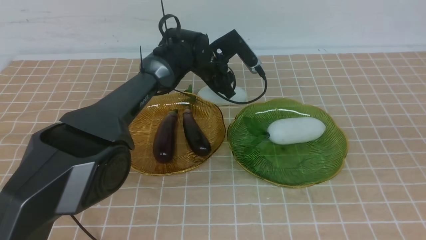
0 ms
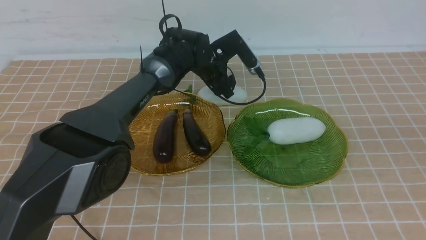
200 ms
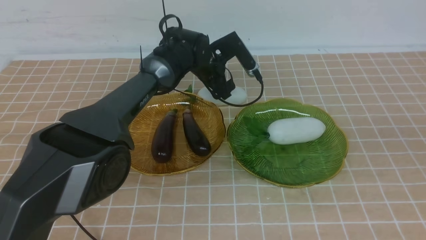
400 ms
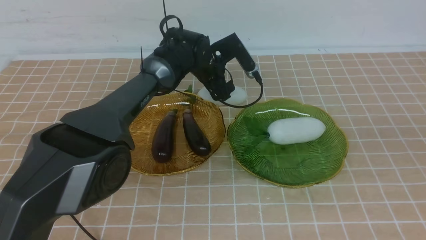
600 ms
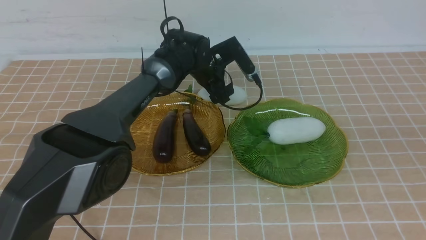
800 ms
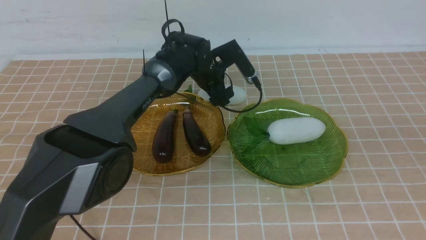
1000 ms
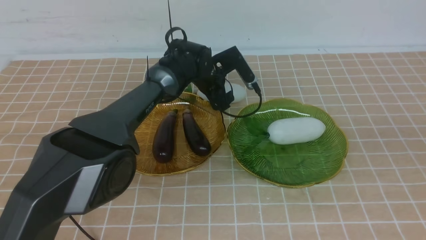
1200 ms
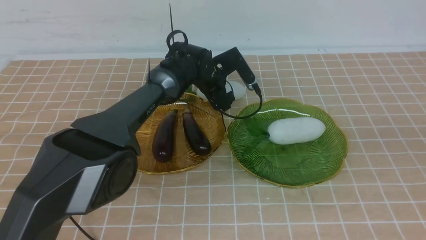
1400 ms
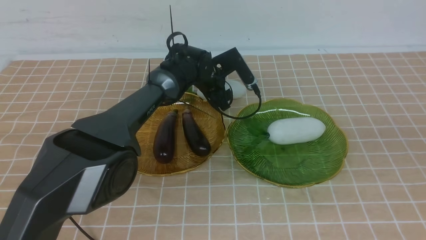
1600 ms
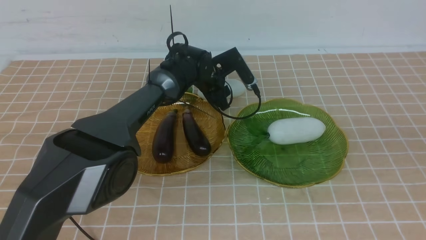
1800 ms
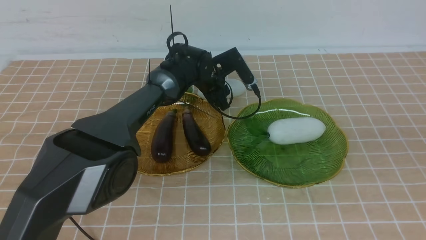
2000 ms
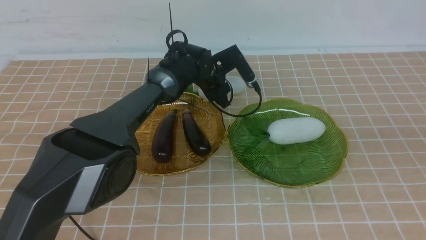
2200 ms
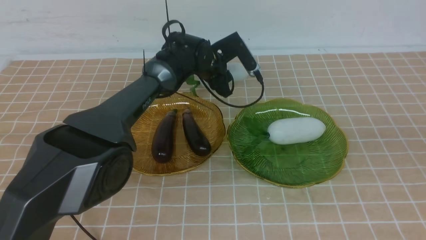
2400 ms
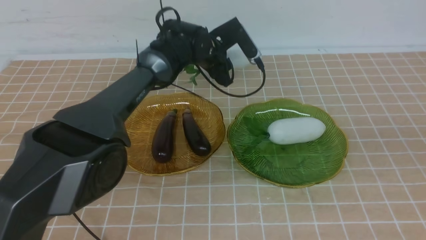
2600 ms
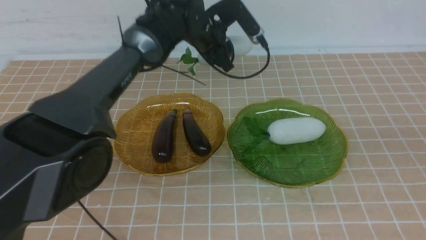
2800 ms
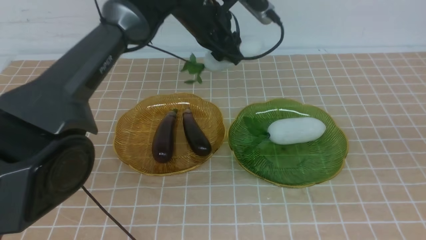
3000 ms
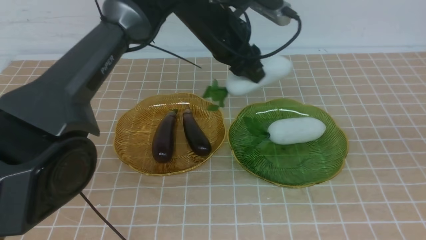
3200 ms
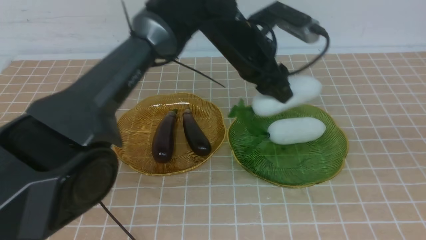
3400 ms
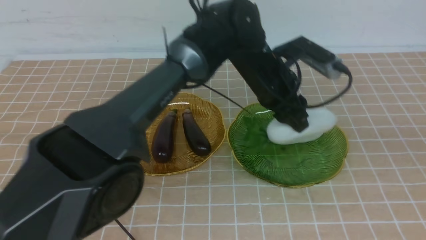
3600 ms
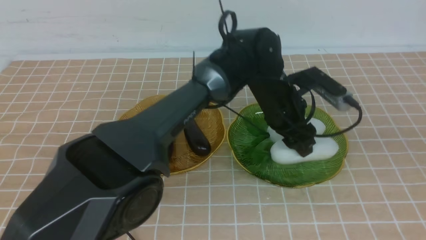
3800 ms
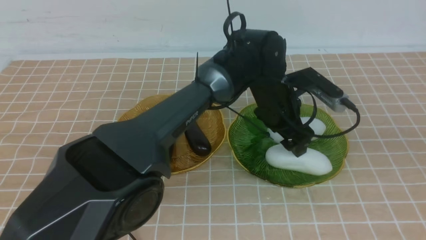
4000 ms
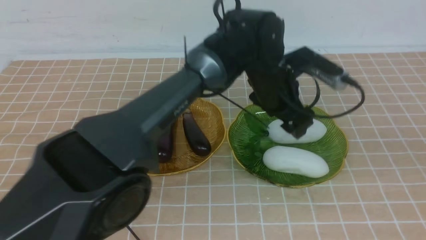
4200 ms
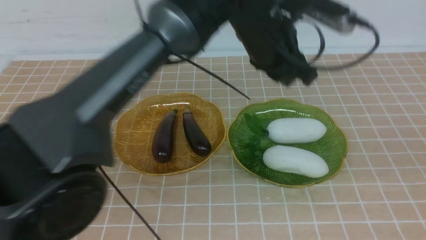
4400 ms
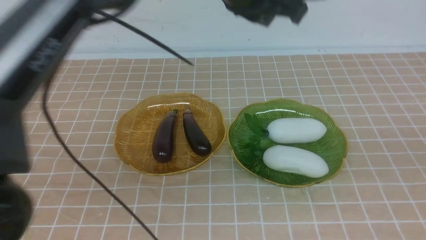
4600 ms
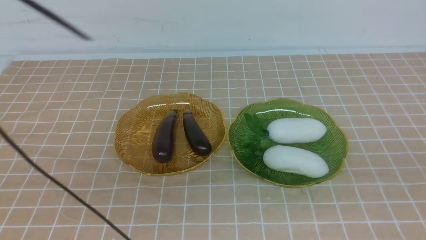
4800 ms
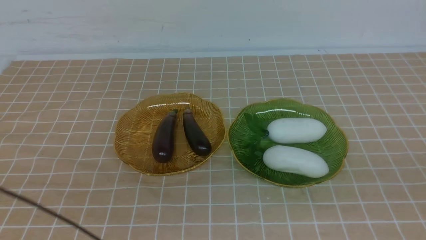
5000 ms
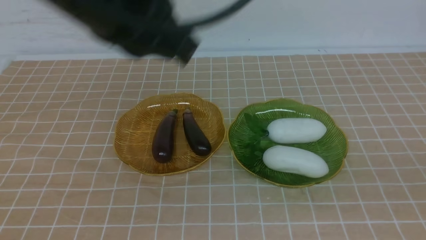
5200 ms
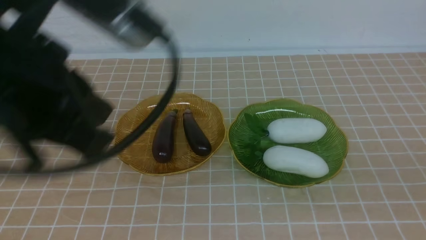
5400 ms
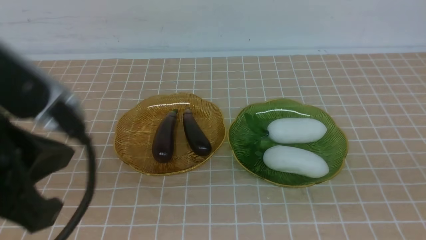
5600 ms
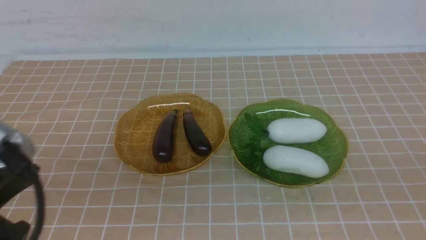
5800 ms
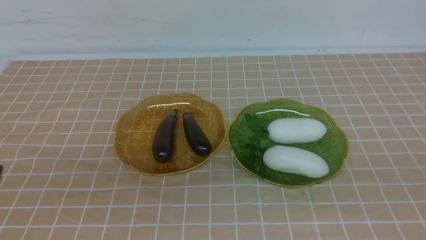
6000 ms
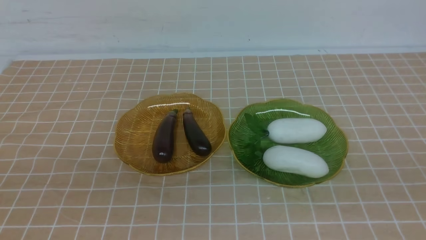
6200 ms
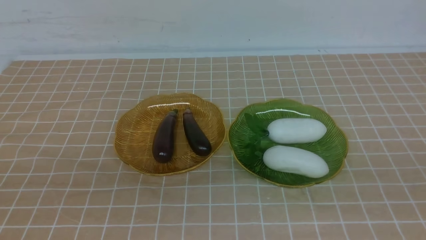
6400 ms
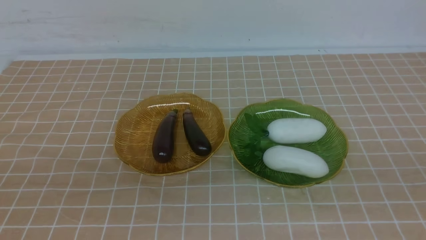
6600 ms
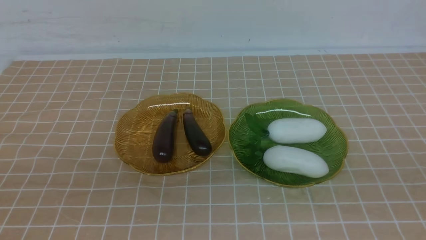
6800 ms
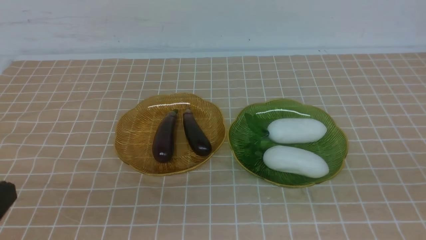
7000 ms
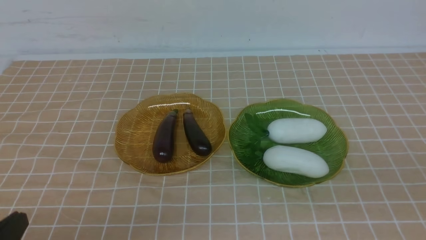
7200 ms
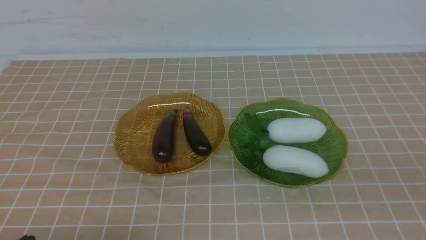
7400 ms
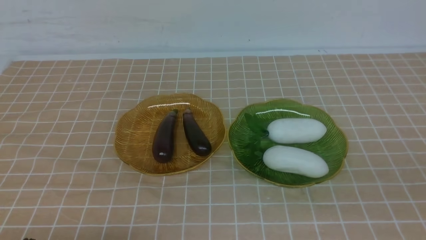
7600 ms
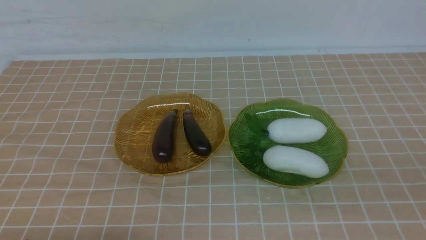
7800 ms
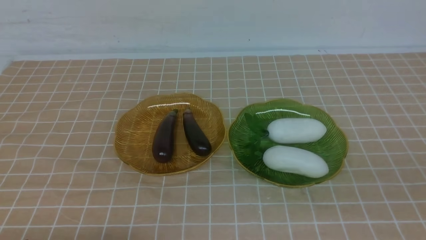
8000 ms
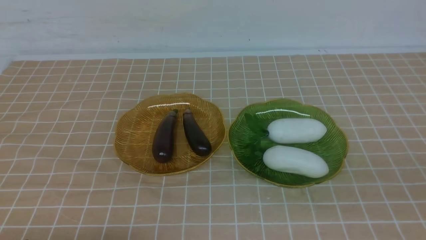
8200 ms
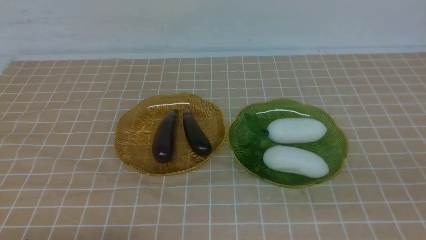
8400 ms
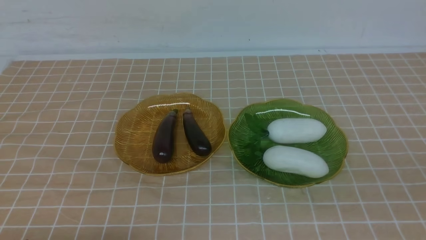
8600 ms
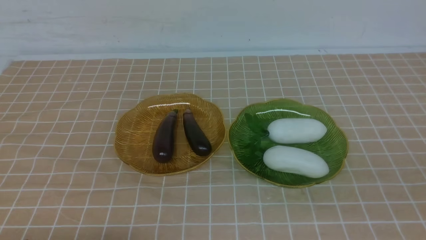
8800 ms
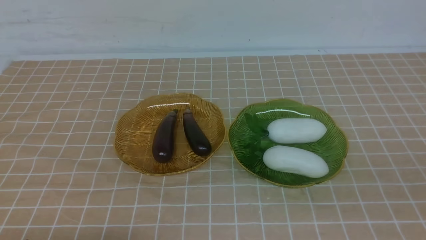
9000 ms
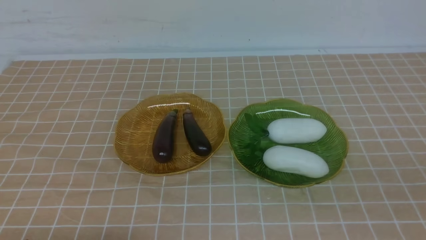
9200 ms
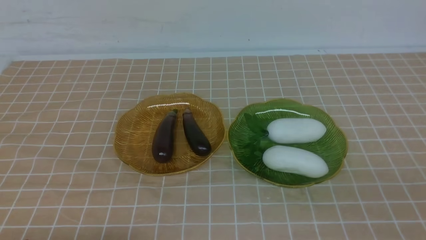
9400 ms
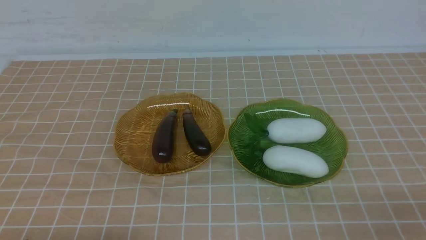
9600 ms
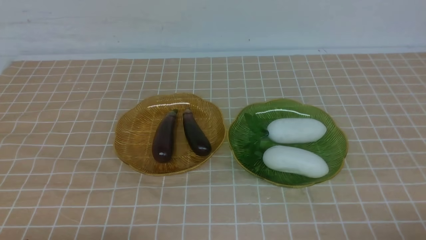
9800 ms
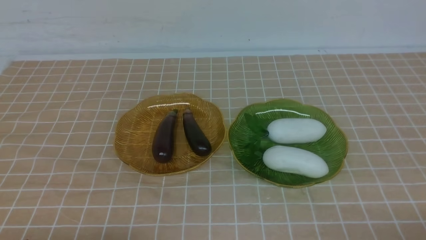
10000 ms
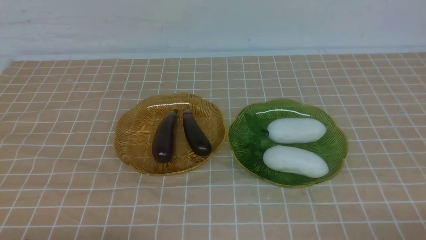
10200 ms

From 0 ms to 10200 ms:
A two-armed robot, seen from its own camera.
Step, from 0 ms to 4200 ms: use the left arm to grab a radish and put it into the right plate.
From 0 ms to 1400 ms: The grippers make only small movements.
From 1400 ms to 3000 ms: The left gripper moves upward and backward, approximately 15 cm, and closes its fingers.
From 3000 ms to 4400 ms: The right gripper travels backward by about 5 cm; the left gripper shifts some 10 cm backward, upward and to the right, and opens and closes again.
From 4400 ms to 5800 ms: The left gripper travels backward and to the left by some 35 cm; the right gripper is displaced downward by roughly 10 cm.
From 5800 ms to 7200 ms: The left gripper heads downward, covering some 15 cm.
From 7200 ms to 8800 ms: The left gripper travels downward by about 5 cm.

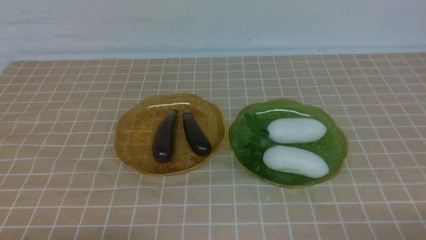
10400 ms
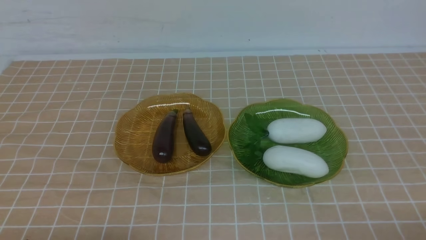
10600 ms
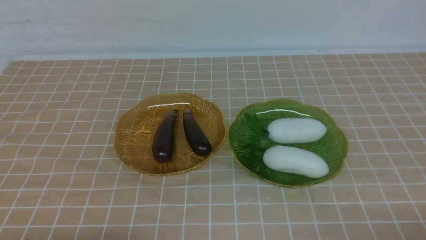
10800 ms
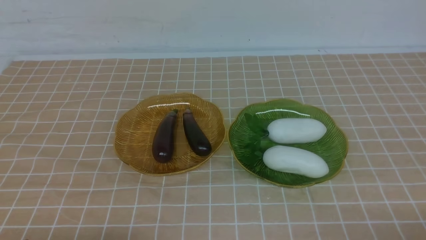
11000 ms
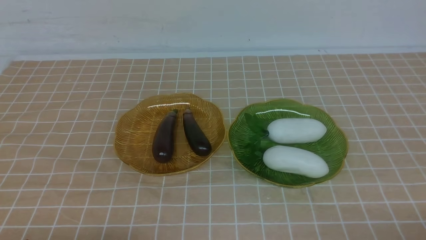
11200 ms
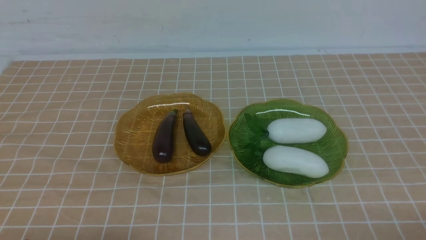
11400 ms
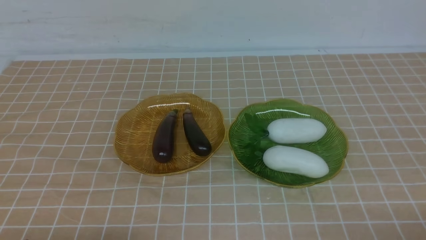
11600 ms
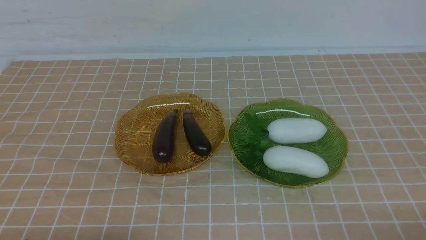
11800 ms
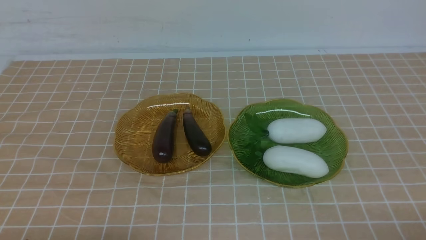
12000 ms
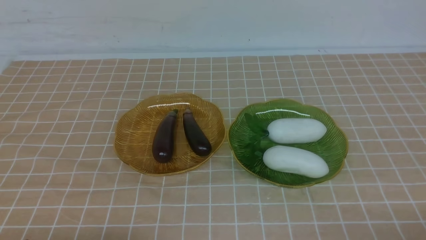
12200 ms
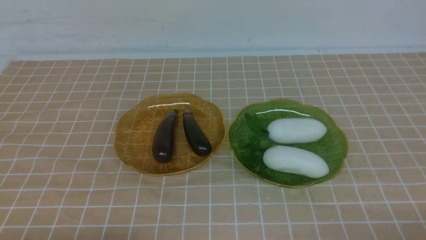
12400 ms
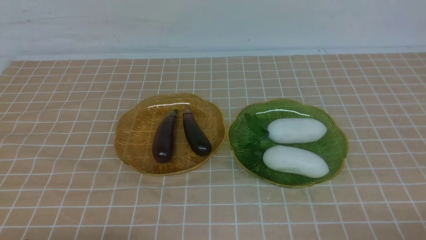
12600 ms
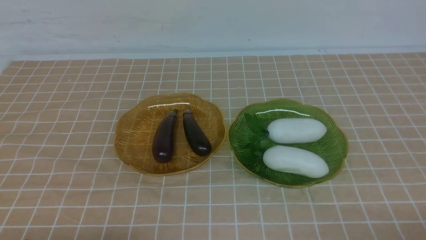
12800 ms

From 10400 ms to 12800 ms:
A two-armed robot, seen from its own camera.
From 10400 ms to 12800 ms: Both grippers stay put.
